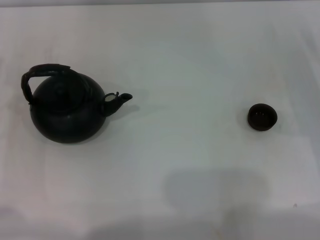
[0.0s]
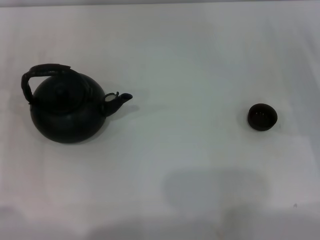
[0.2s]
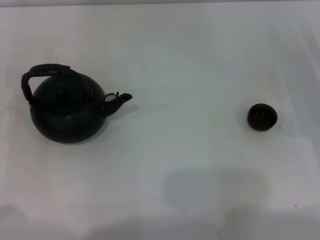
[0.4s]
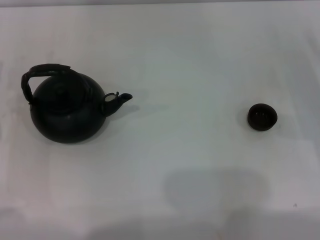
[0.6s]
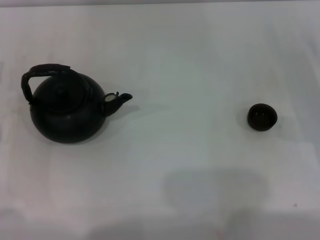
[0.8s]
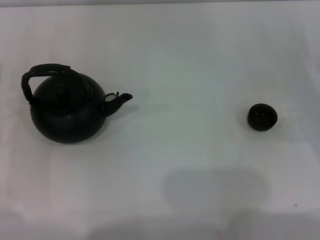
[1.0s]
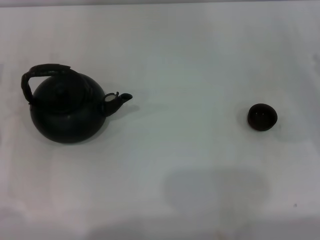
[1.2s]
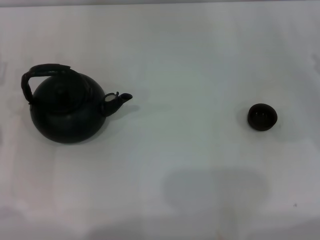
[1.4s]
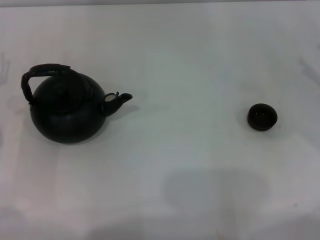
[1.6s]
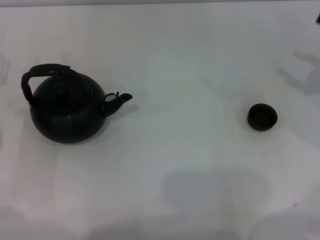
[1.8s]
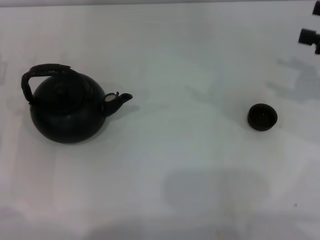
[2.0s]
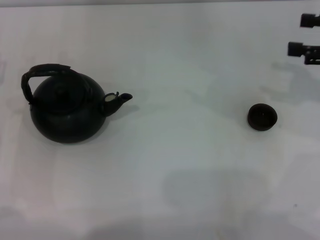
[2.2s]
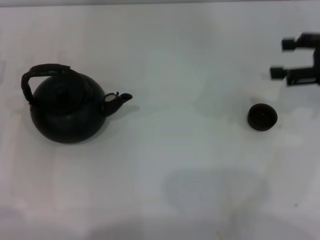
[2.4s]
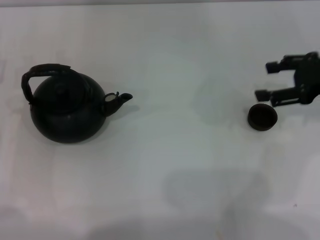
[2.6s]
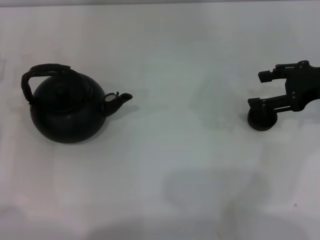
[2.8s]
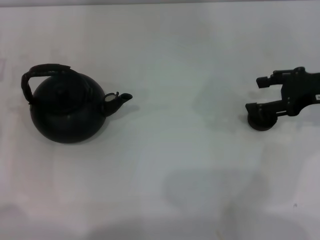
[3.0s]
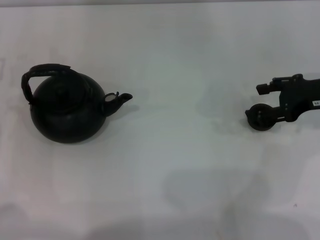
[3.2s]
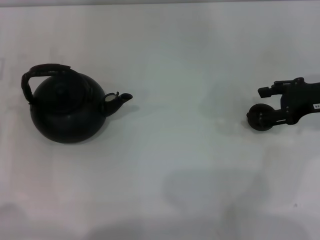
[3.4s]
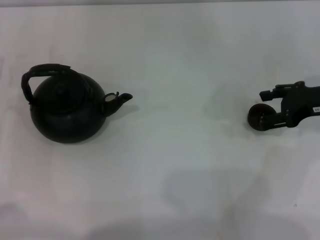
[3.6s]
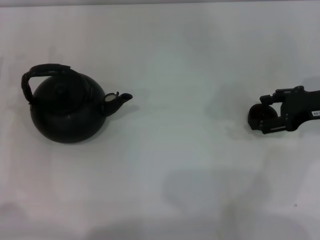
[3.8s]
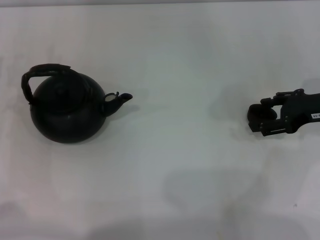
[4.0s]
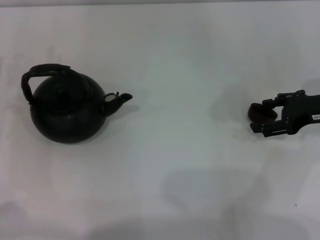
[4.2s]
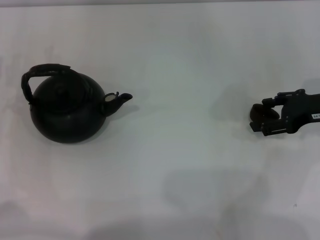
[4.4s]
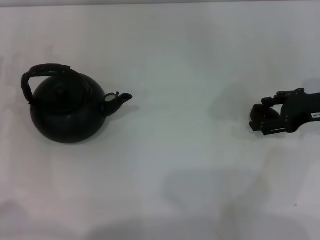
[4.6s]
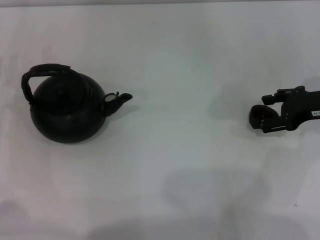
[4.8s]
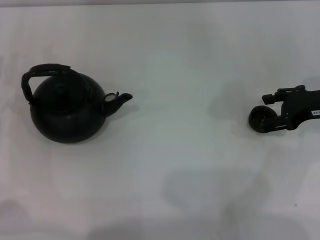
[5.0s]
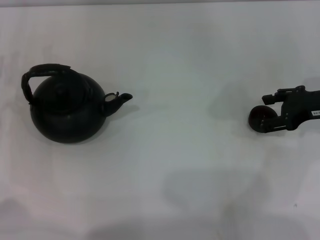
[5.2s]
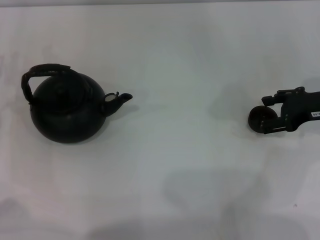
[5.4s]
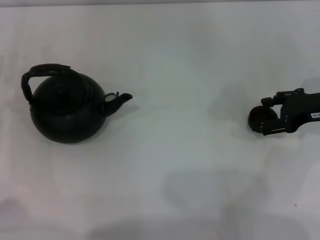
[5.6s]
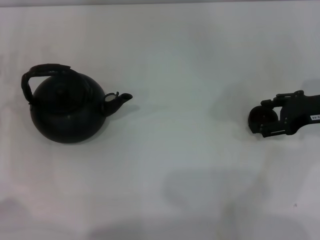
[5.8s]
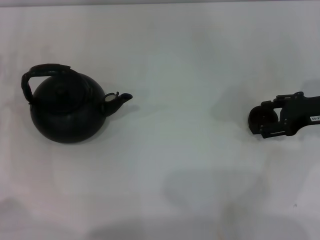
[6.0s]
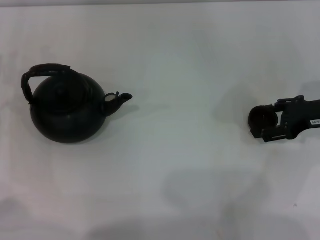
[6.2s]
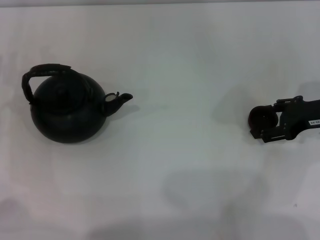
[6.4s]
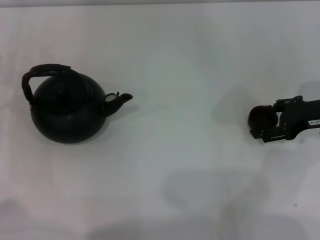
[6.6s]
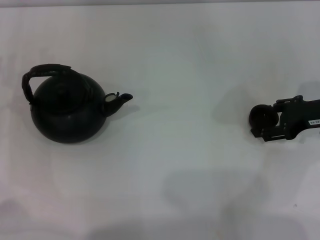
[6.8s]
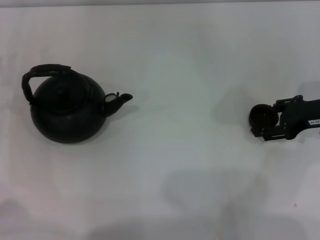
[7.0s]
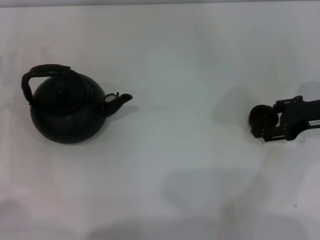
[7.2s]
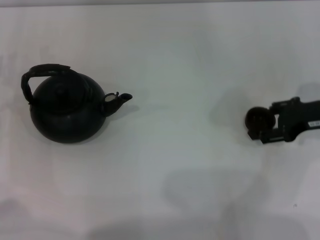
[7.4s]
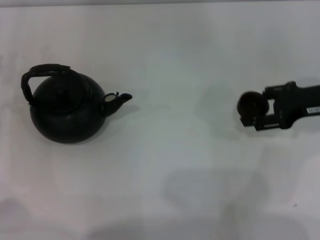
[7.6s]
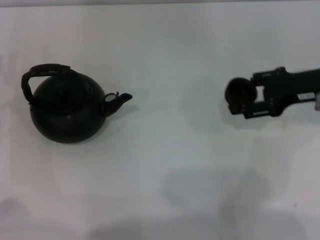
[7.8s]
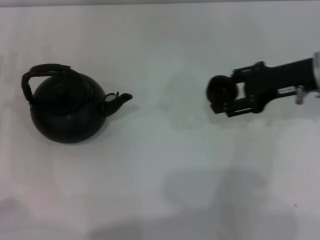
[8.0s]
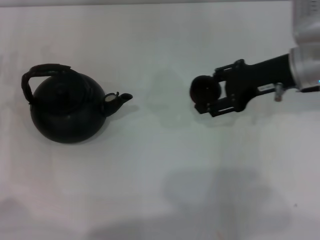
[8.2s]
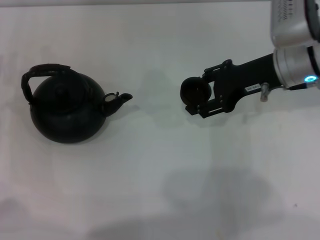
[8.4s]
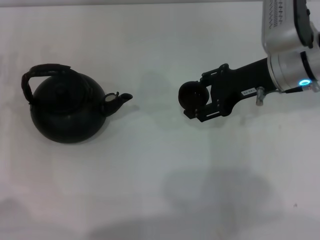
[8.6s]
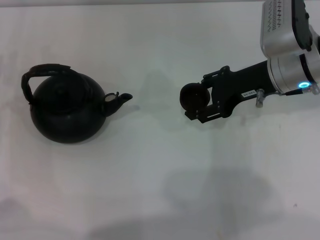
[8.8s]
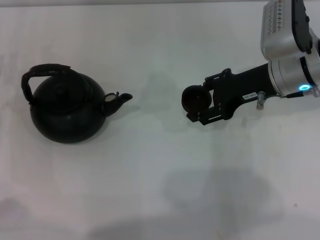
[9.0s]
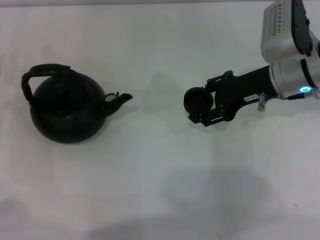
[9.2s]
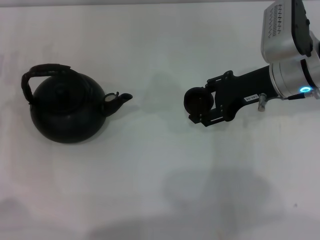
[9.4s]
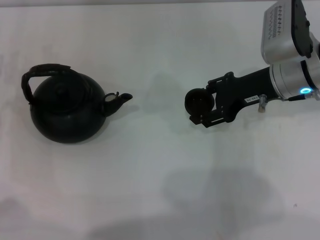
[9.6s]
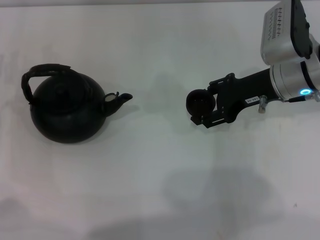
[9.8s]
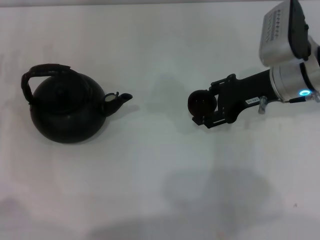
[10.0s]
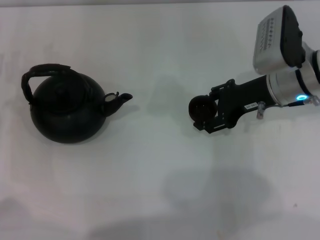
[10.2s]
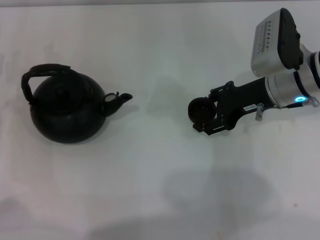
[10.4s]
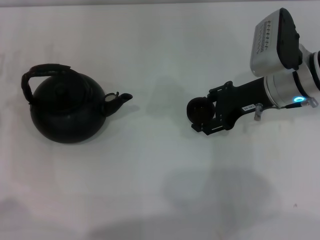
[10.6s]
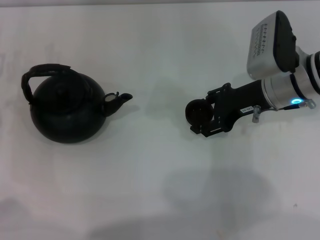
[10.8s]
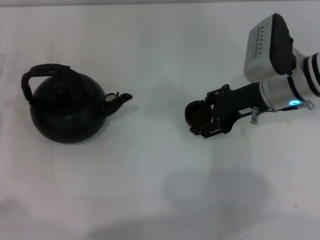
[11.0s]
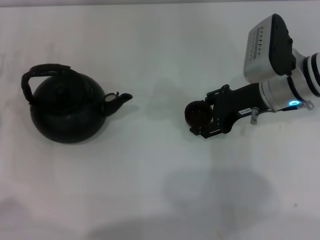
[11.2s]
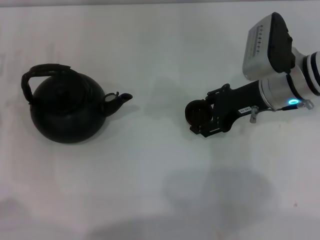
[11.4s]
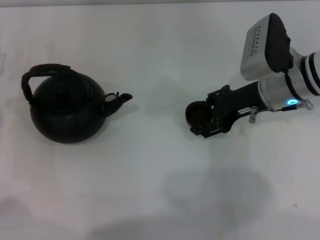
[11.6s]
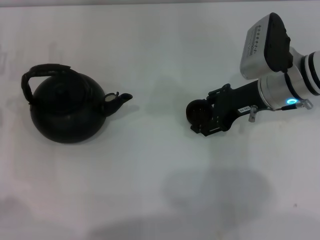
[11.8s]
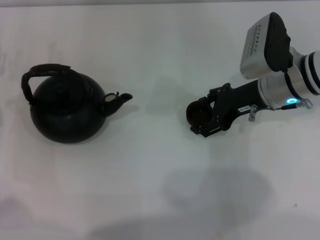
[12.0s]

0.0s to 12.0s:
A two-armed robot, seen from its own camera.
Task of the whole recording: Grasp the handle of the teapot with one hand and pour tea into the teacup.
Step, 0.0s to 7.6s: Pick up the teacup with the right gripper.
1.6s to 3.0s: The right gripper travels to the left by approximately 10 cm, and opens its fingers.
3.0s to 4.4s: There are only small adjustments of the grippers.
4.4s to 6.0s: Neither gripper changes place.
6.0s to 7.6s: The right gripper closes.
7.6s to 9.0s: The right gripper shifts approximately 10 cm to the left.
9.0s to 10.4s: The grippers stay close to where they were, moving slightly.
10.4s to 12.0s: Both grippers stay put.

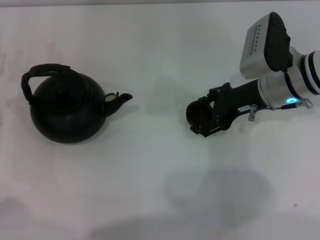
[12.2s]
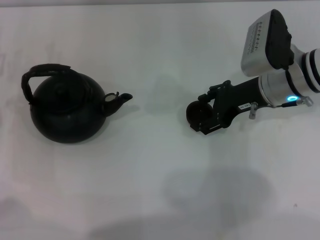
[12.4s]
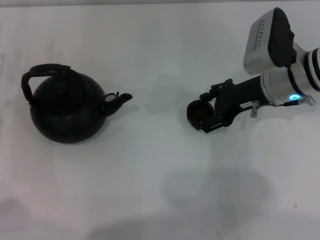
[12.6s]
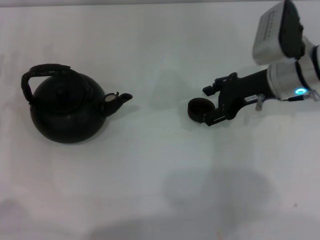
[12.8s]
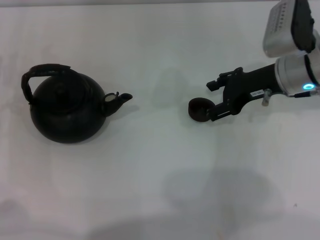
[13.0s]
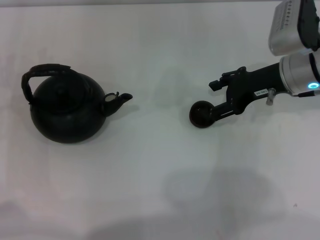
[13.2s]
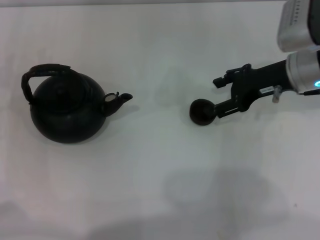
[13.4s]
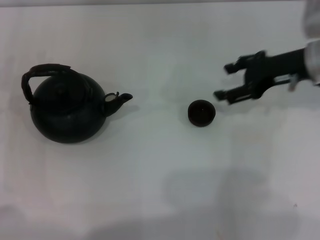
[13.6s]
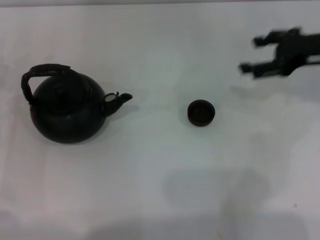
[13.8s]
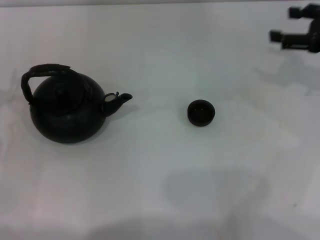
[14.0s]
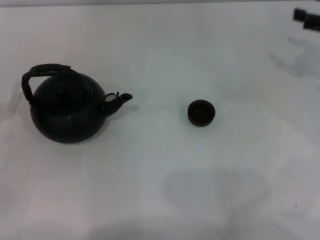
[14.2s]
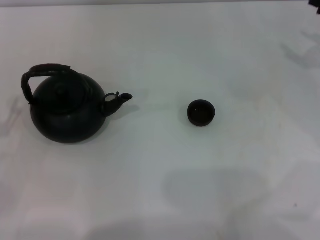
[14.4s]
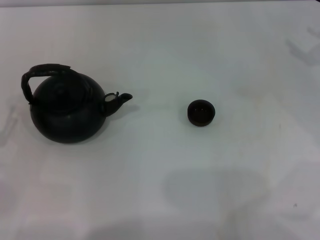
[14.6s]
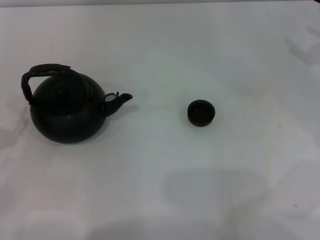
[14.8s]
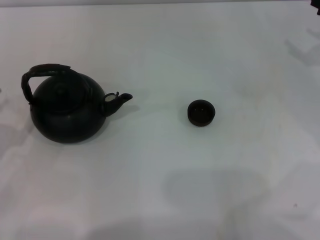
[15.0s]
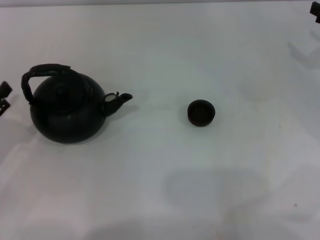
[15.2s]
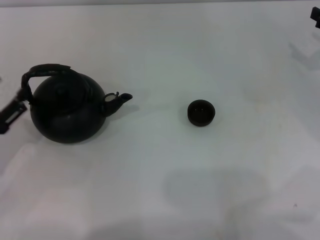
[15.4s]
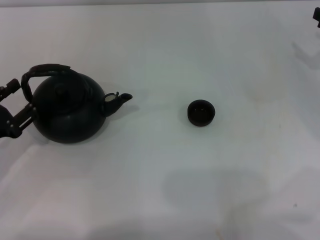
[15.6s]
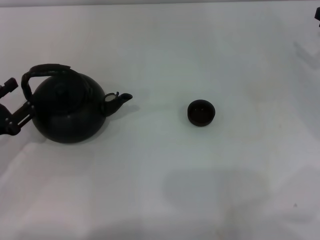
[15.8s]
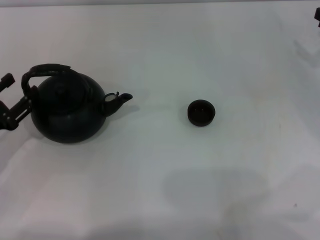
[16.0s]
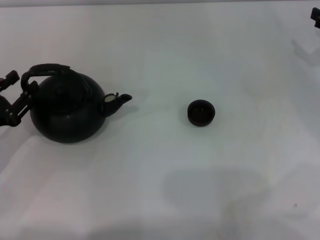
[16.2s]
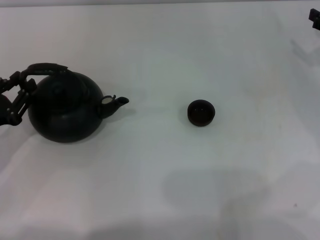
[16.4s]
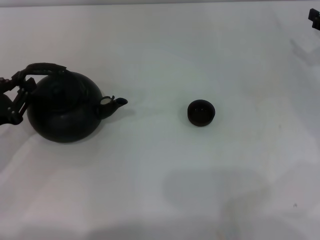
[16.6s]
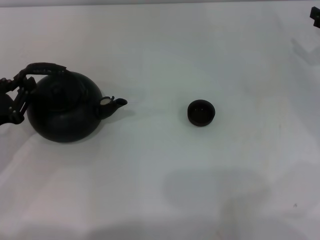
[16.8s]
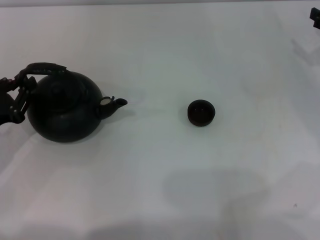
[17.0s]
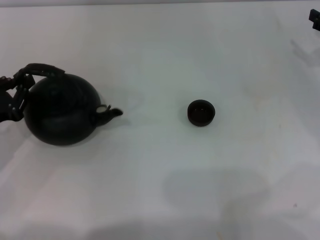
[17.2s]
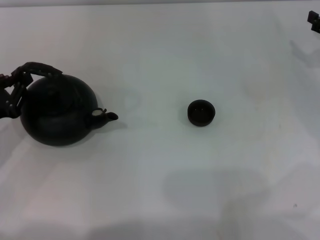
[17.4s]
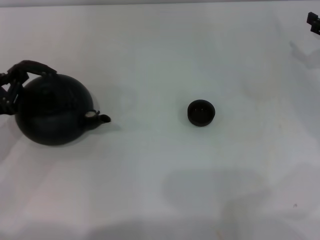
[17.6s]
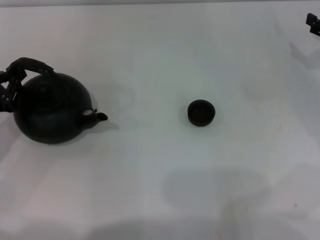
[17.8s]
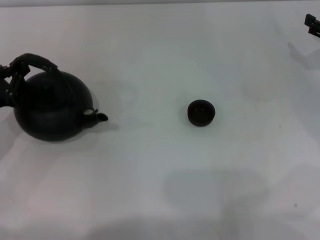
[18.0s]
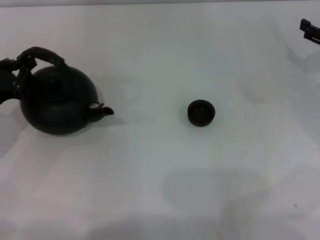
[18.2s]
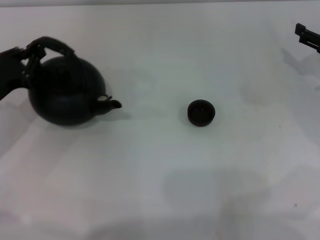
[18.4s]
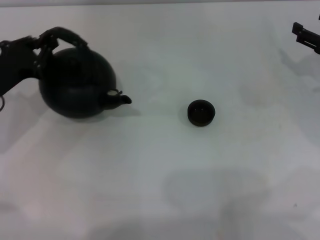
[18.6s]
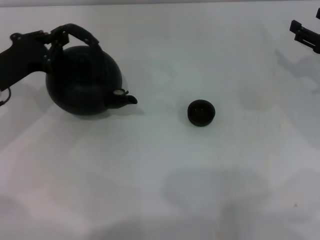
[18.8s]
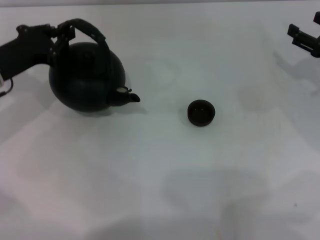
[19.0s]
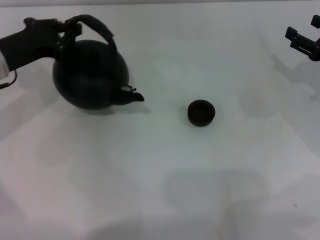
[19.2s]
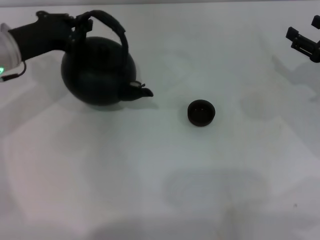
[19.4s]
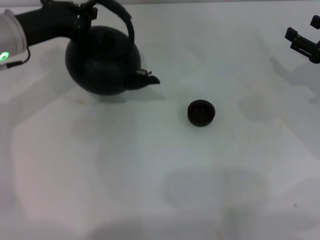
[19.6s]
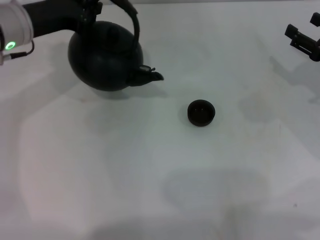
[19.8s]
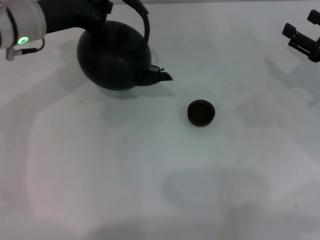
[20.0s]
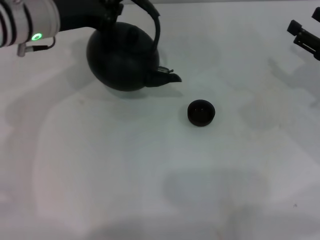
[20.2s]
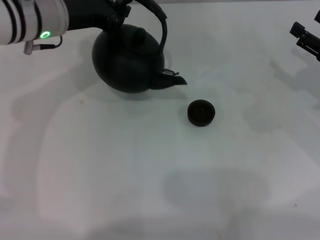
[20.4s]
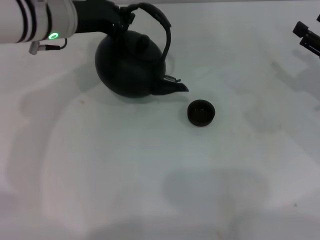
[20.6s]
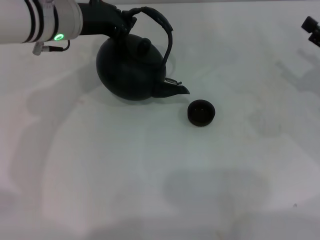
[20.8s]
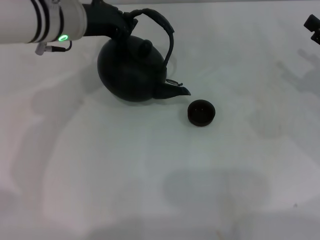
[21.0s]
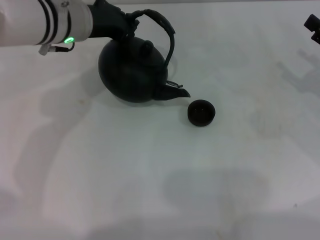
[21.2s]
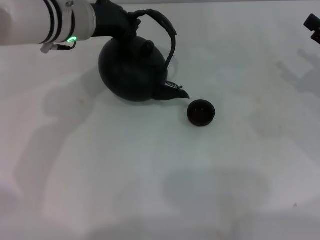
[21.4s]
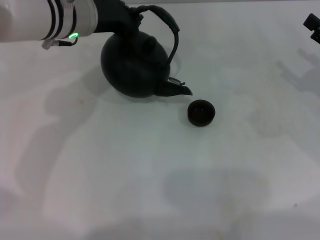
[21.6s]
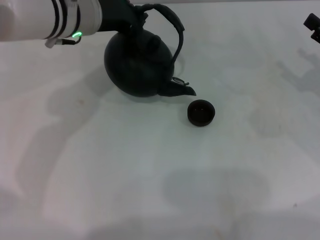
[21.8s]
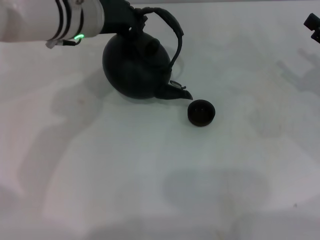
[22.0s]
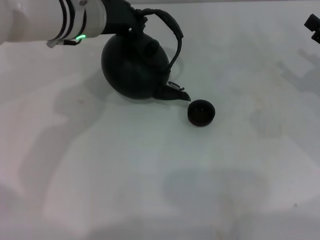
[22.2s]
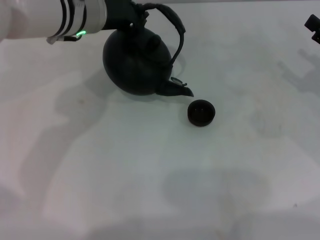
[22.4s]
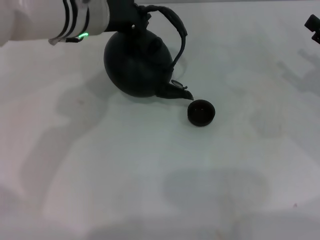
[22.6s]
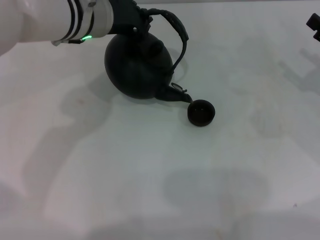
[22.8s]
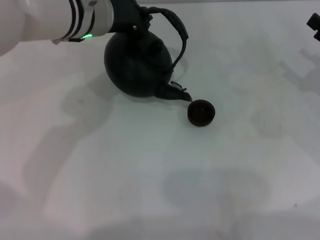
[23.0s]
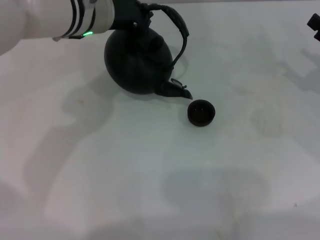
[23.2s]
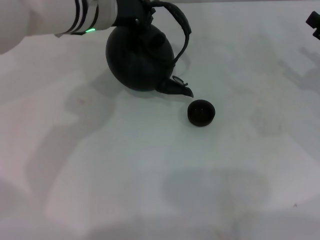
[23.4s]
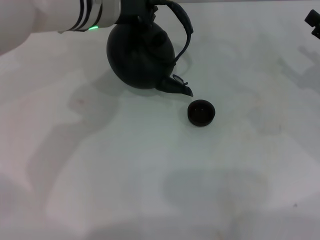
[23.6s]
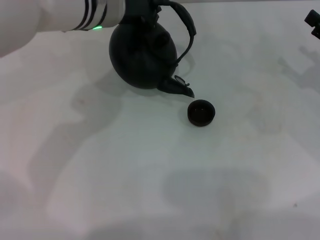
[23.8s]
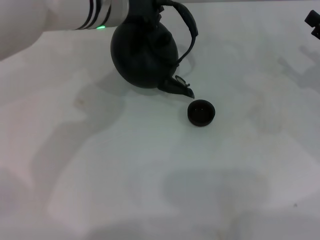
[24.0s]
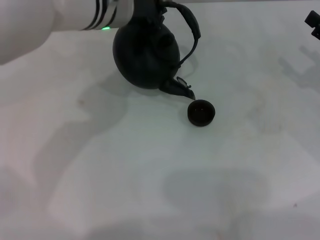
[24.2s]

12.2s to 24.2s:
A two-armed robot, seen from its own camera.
Task of the whole recording: Grasp the handle of the teapot with one hand and pour tea into the teacup.
Step, 13.6s to 18.4s: Pick up the teapot with the left gripper.
12.2s to 13.8s: The right gripper travels to the right and upward by roughly 10 cm, and opens up.
13.8s to 15.2s: The right gripper goes about 10 cm to the right.
15.2s to 16.6s: The left gripper closes its fingers.
16.6s to 18.2s: The left gripper closes.
18.2s to 19.8s: The left gripper is displaced forward, upward and to the right by roughly 20 cm.
19.8s to 21.2s: The left gripper goes about 10 cm to the right.
21.2s to 22.6s: There are only small adjustments of the grippers.
22.6s to 24.2s: The grippers stay close to where they were, moving slightly.
